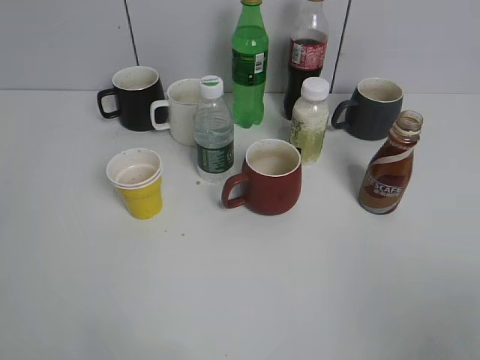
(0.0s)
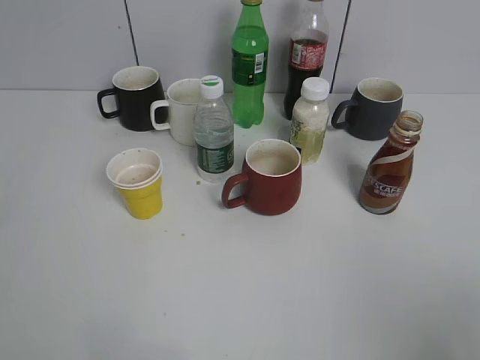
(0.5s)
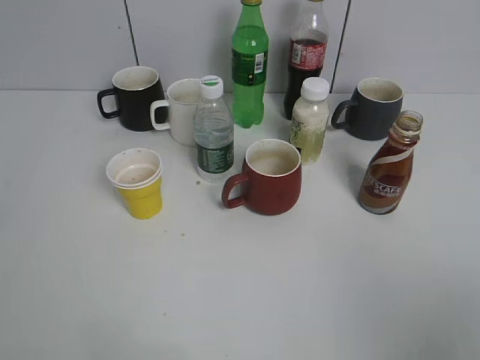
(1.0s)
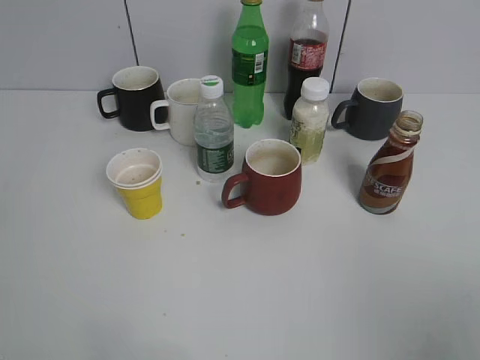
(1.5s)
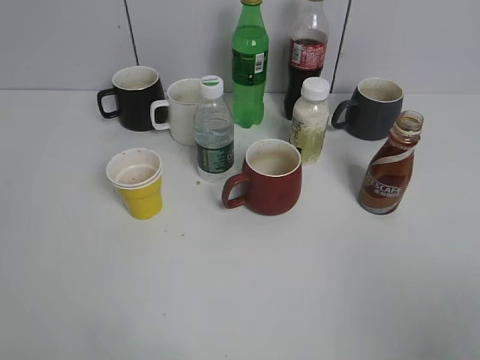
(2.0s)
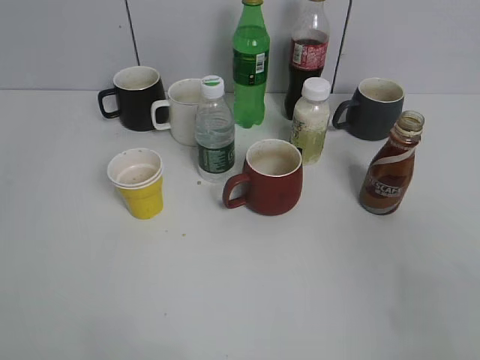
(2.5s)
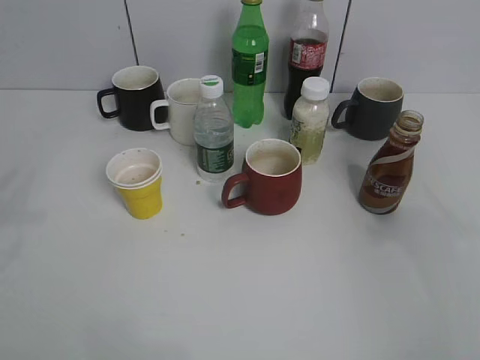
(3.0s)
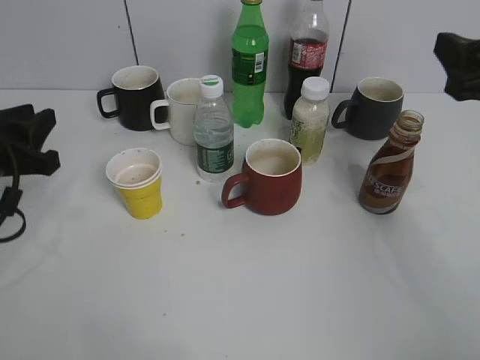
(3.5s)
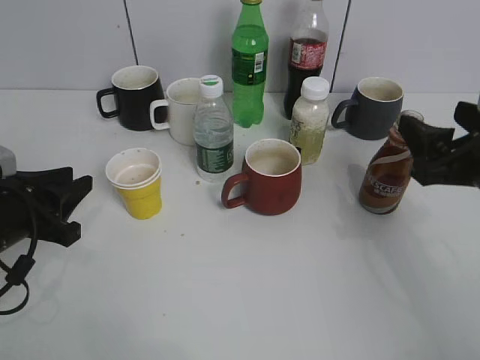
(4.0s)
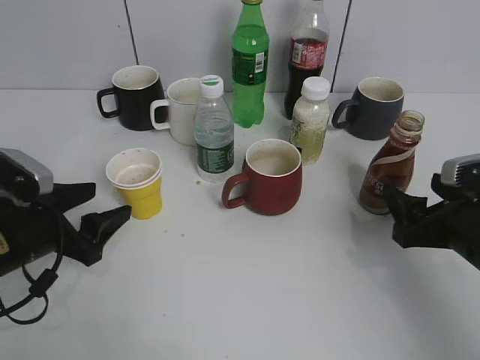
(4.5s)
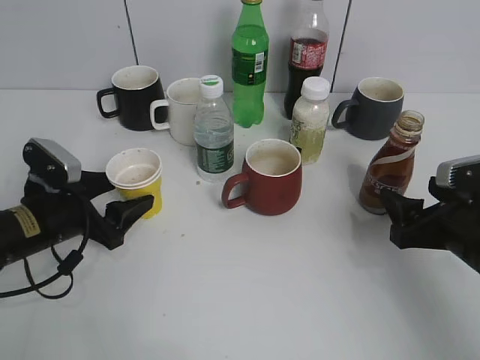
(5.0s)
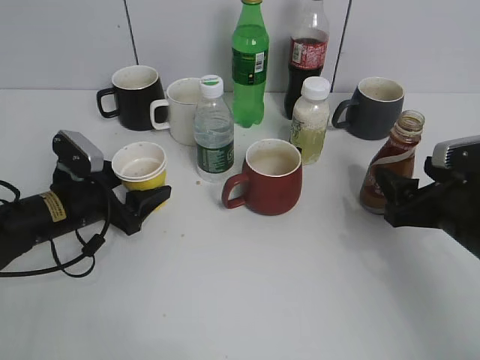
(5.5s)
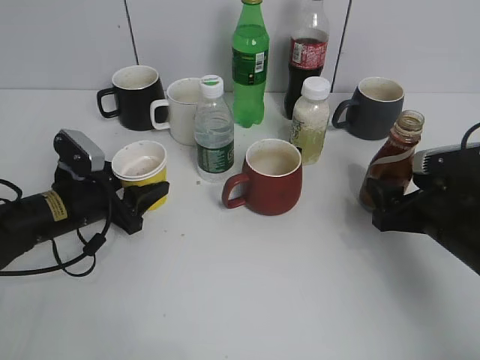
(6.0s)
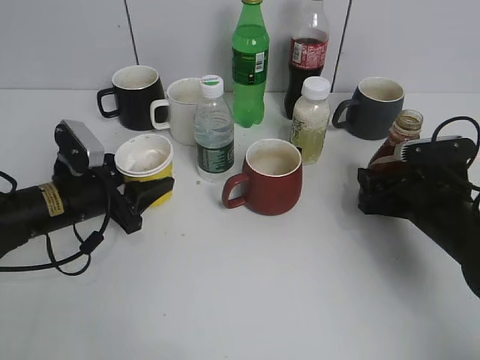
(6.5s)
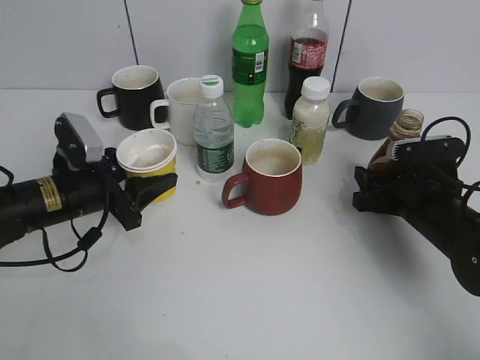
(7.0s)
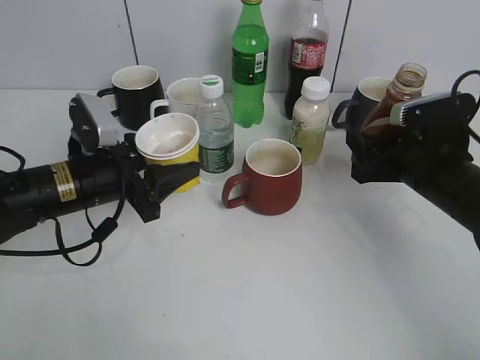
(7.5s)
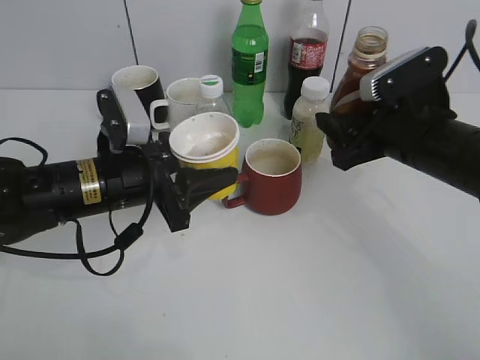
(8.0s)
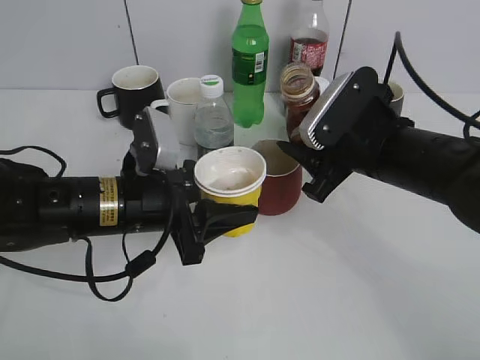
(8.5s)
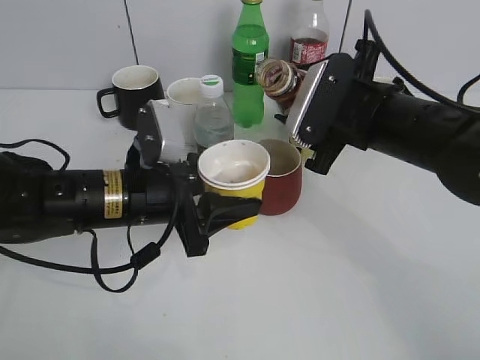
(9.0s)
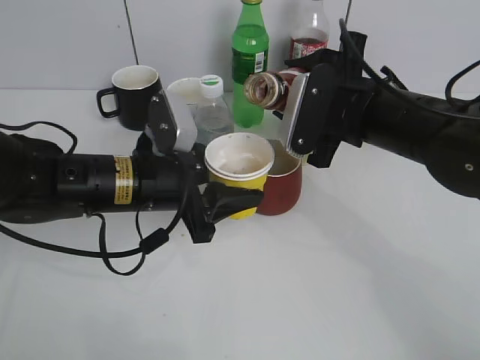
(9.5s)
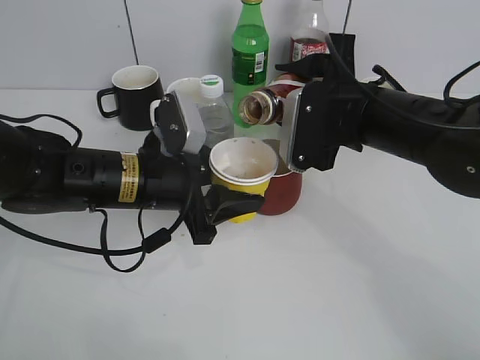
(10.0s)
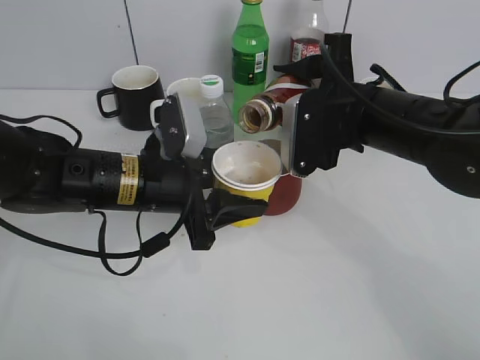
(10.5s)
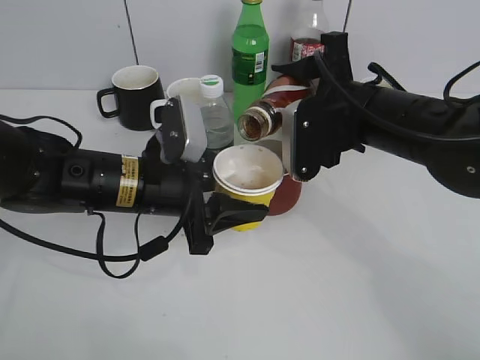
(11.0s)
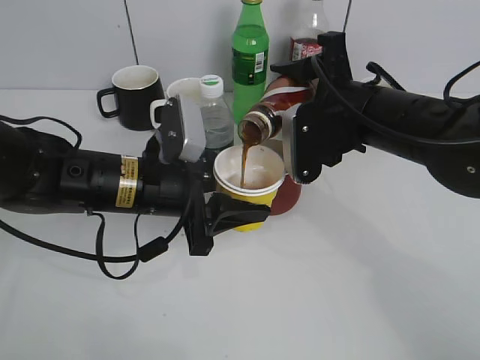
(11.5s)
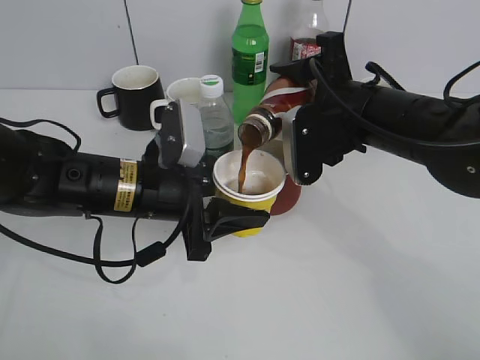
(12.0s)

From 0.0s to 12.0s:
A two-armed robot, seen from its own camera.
Step, from 2.0s to 4.5s: Grasp the yellow paper cup with left gripper.
Step, from 5.0s to 7.0s: Grasp the bottle with coffee with right gripper.
From 2.0s to 4.0s: Both grippers travel together forward and downward, approximately 25 cm.
From 4.0s to 6.0s: The right gripper heads downward, covering roughly 10 cm; the left gripper moves forward and downward, about 10 cm, and opens up.
From 6.0s to 8.0s: The right gripper is displaced upward and to the left by about 10 cm, and closes up, while the left gripper is displaced upward and to the right by roughly 10 cm.
From 8.0s to 10.0s: The right gripper travels to the left by some 5 cm.
From 10.0s to 12.0s: The grippers stay close to where they were, moving slightly.

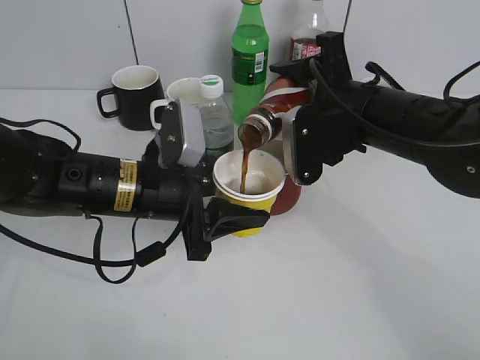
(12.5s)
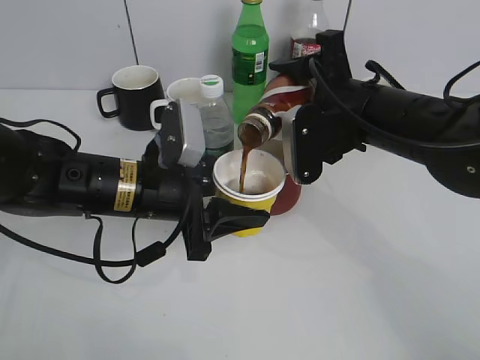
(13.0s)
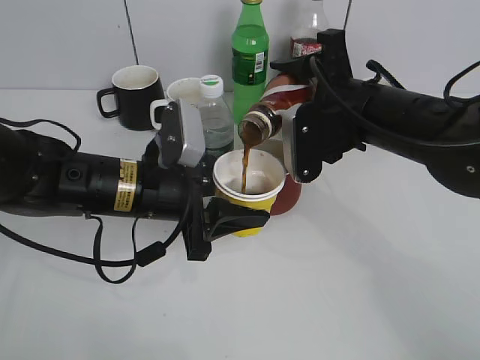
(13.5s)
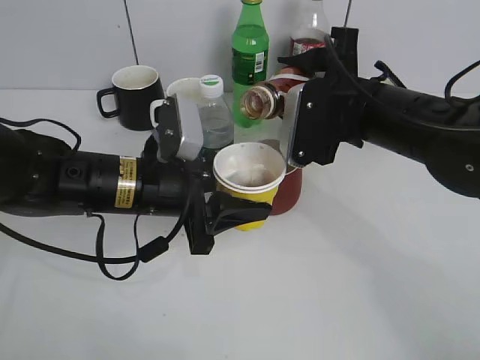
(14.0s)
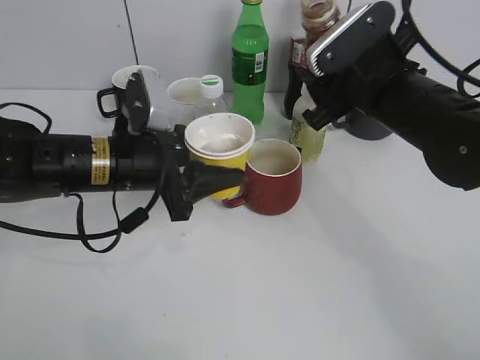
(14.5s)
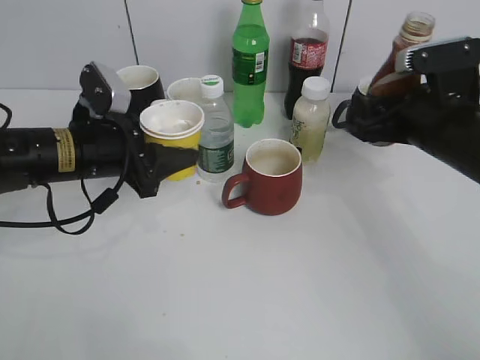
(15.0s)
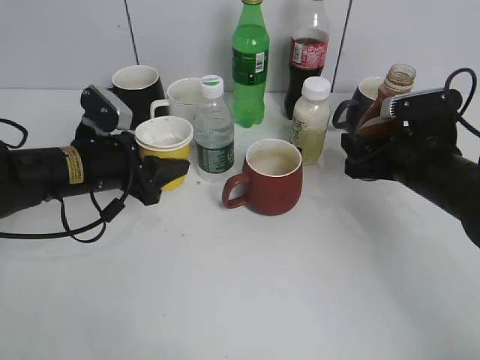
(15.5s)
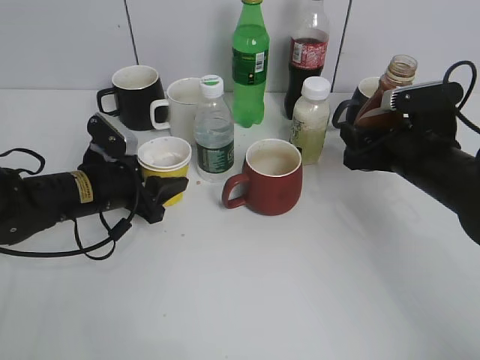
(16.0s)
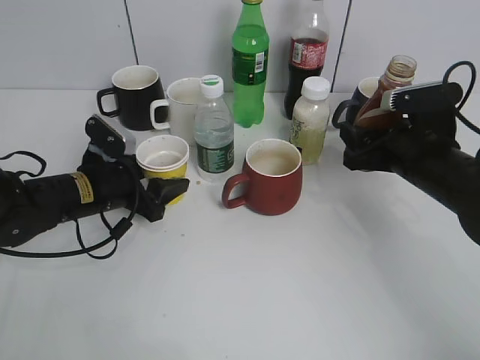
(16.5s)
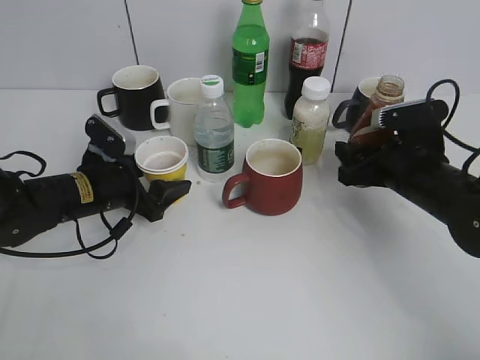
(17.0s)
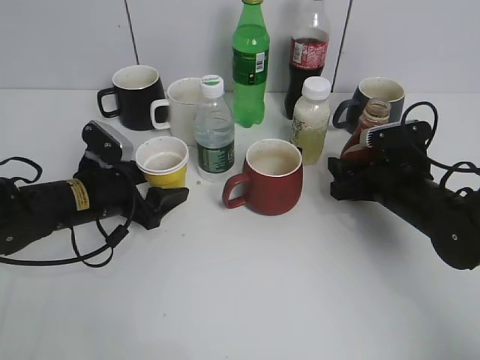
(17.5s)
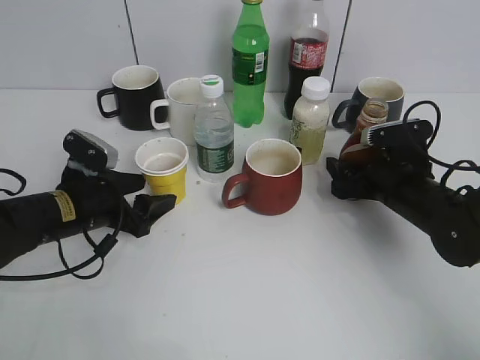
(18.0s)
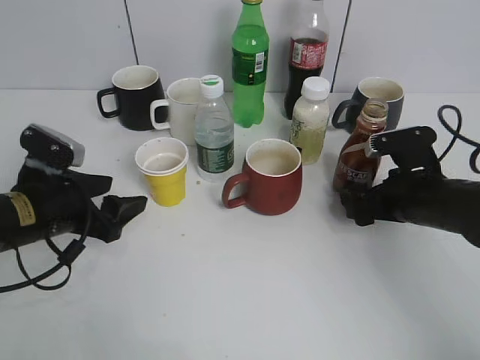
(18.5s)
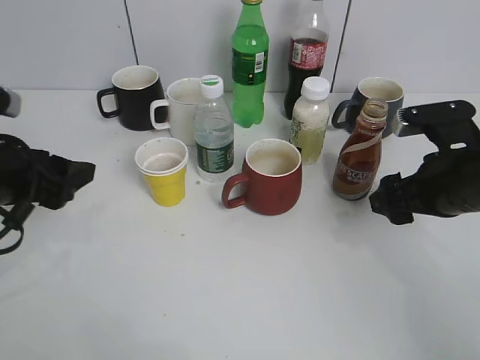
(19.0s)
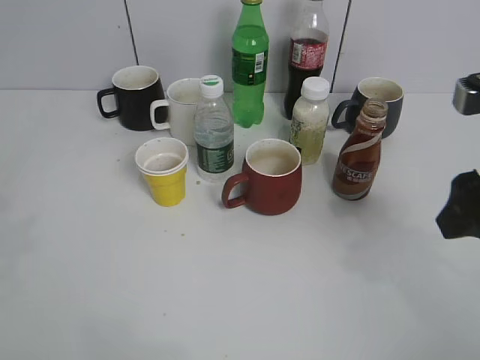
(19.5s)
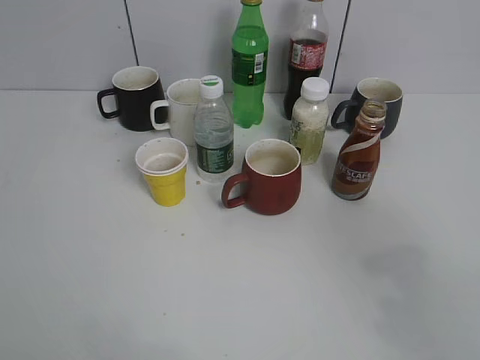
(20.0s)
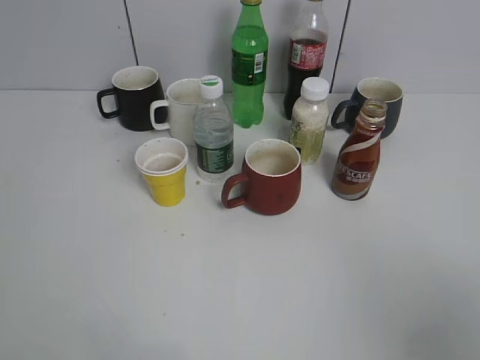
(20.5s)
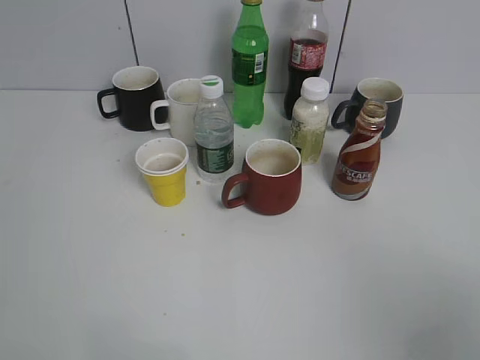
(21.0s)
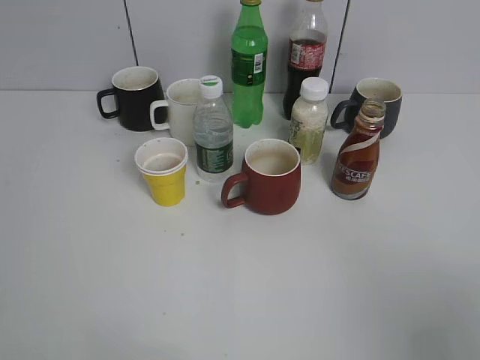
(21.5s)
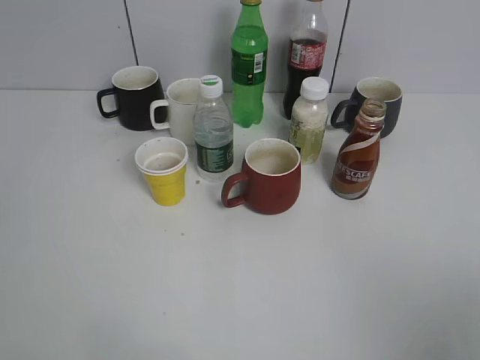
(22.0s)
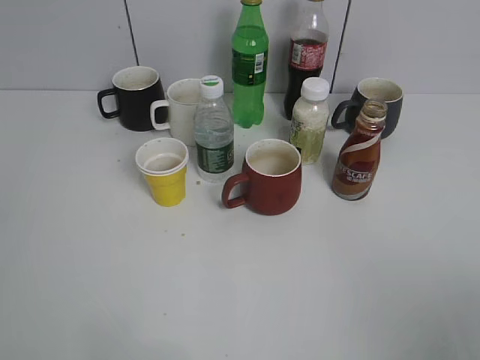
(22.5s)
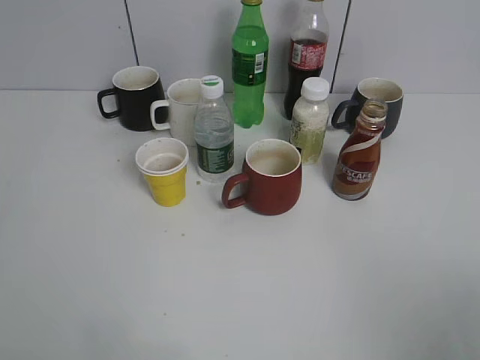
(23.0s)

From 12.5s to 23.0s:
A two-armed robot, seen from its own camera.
Step, from 12.5s to 14.5s: Pour the coffee from bottle to cup with right gripper.
Step, from 15.0s to 18.5s: Place the coffee bottle on the table with right gripper.
From 14.5s to 16.5s: The left gripper goes about 10 cm downward and to the left, while the right gripper moves downward and to the right, roughly 10 cm.
From 16.5s to 19.0s: The left gripper travels upward, backward and to the left by about 15 cm; the right gripper travels downward and back again, approximately 5 cm each way, and opens up.
From 19.0s to 21.0s: The grippers both shift backward and upward by about 25 cm. The left gripper closes.

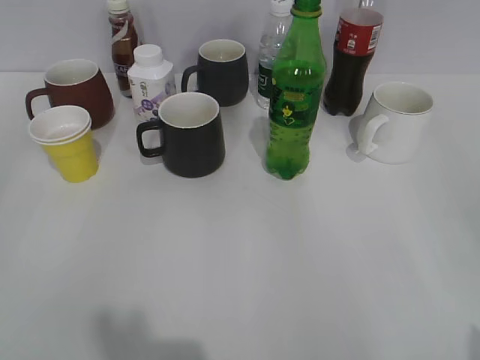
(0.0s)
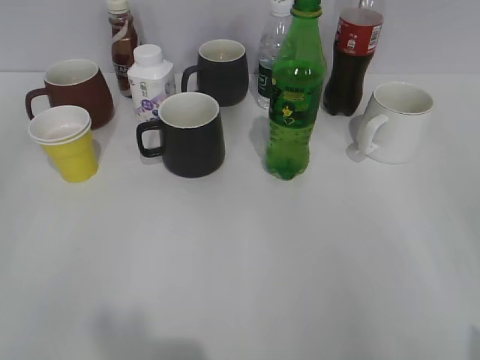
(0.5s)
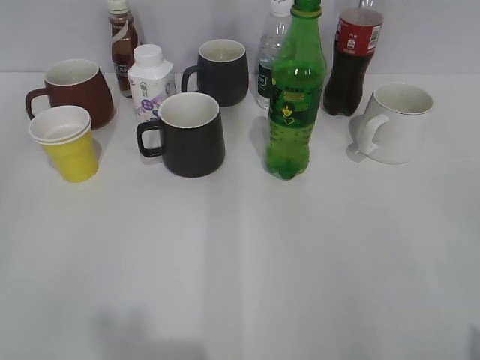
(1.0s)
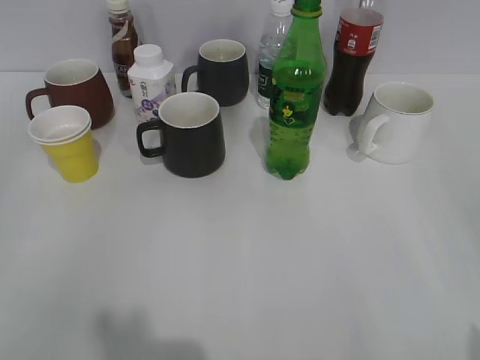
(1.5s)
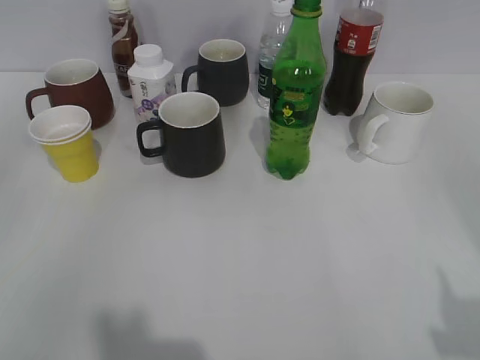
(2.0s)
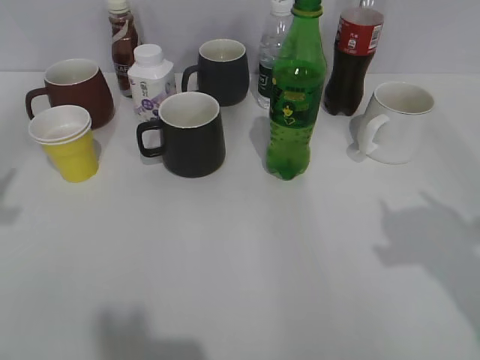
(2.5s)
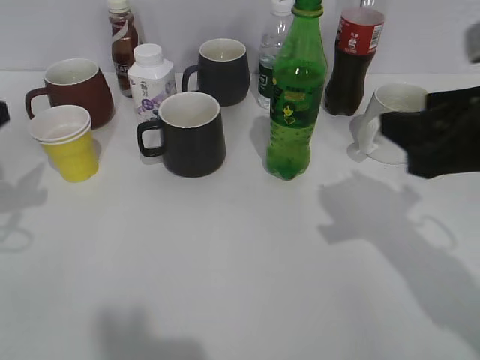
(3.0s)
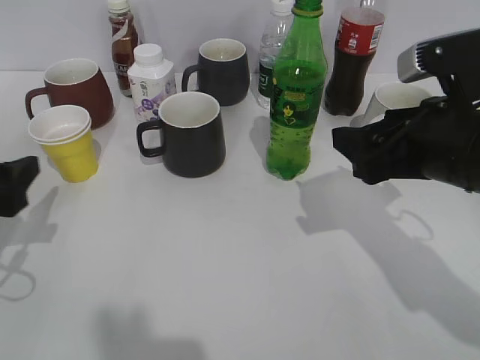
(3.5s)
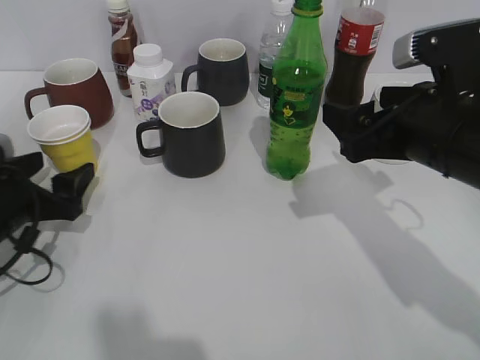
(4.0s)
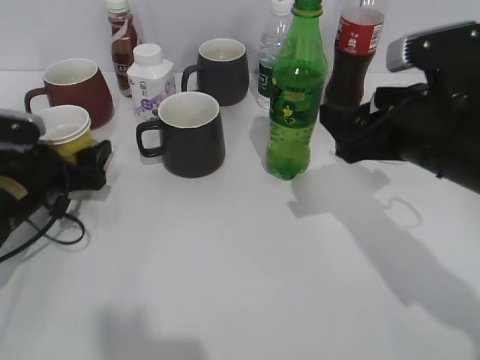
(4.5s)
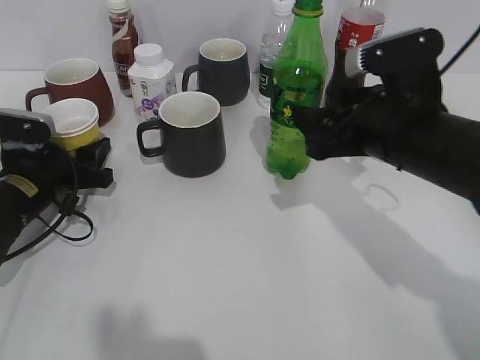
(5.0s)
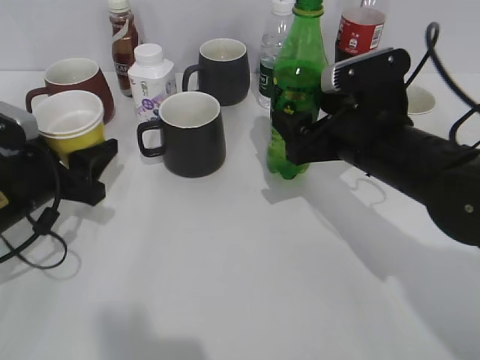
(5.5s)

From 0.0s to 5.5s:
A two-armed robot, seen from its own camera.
Step, from 2.0s to 4.5s: Grasp the yellow paper cup with left gripper.
From 2.0s to 3.5s: The right gripper is displaced forward, to the left and downward by some 25 cm, and closes and opens again, while the left gripper is displaced forward and downward by about 20 cm, and opens up.
From 3.5s to 5.5s: The left gripper goes roughly 5 cm forward, and closes its fingers; the right gripper goes roughly 10 cm forward and downward.
